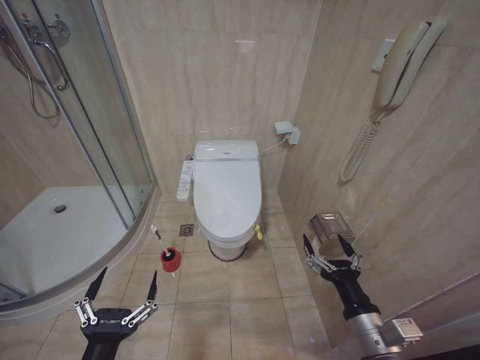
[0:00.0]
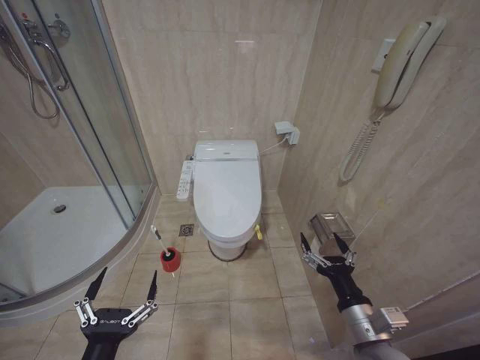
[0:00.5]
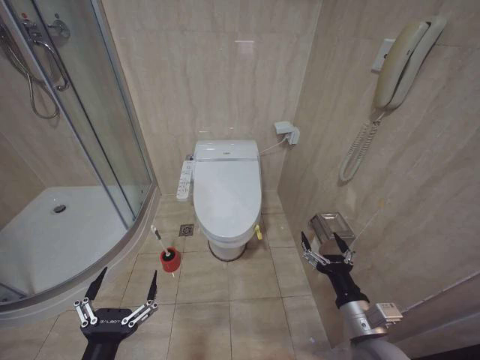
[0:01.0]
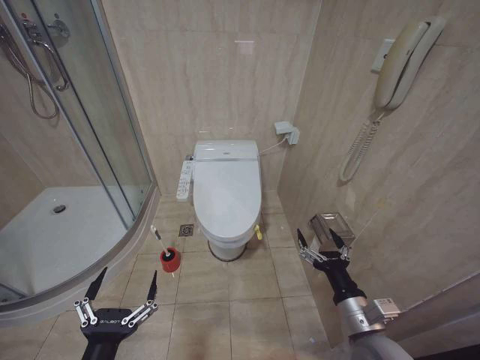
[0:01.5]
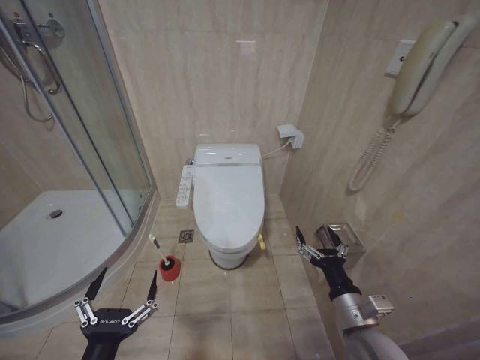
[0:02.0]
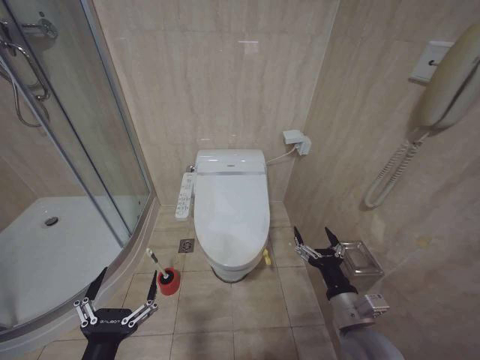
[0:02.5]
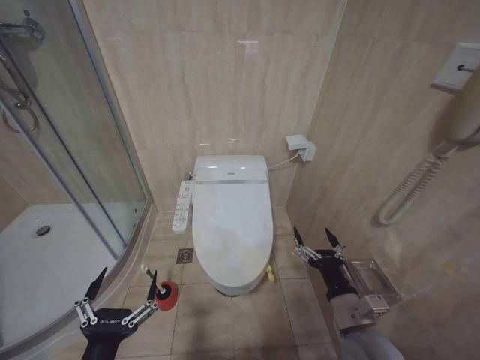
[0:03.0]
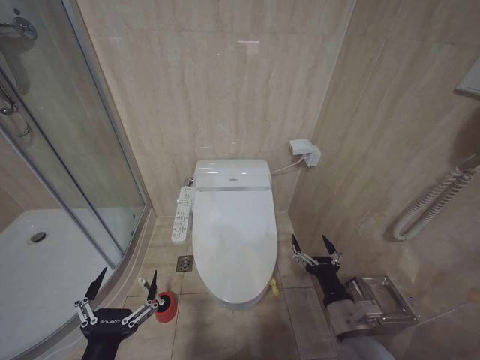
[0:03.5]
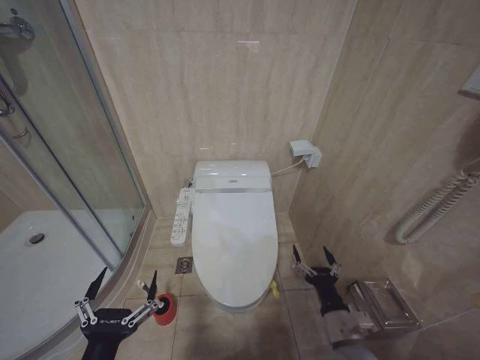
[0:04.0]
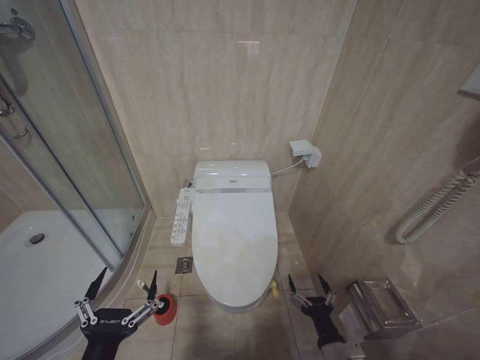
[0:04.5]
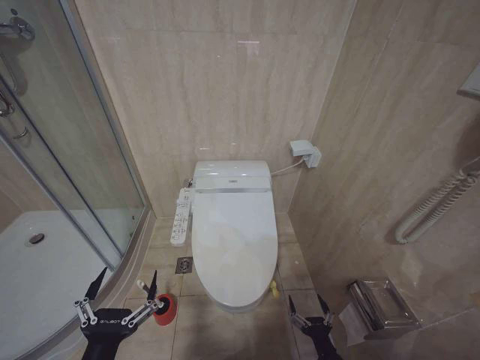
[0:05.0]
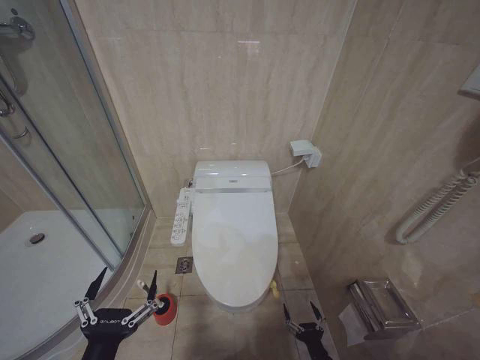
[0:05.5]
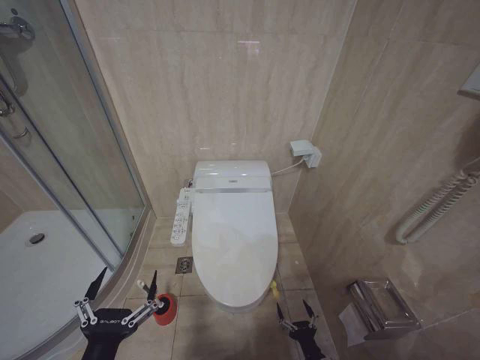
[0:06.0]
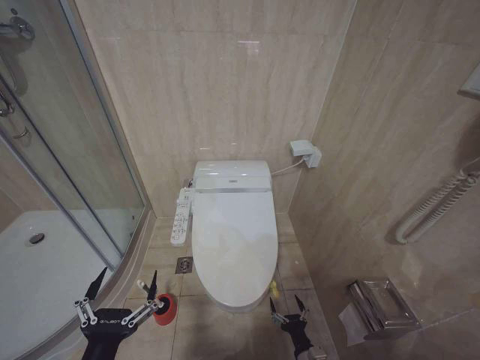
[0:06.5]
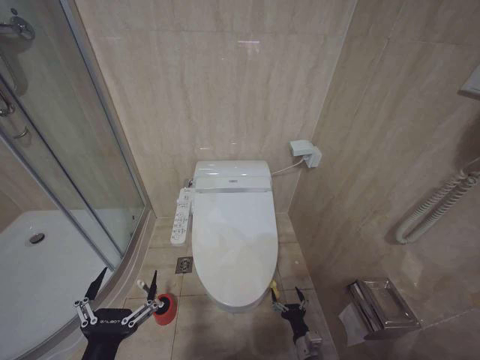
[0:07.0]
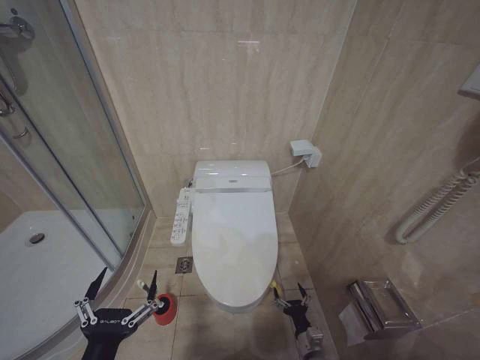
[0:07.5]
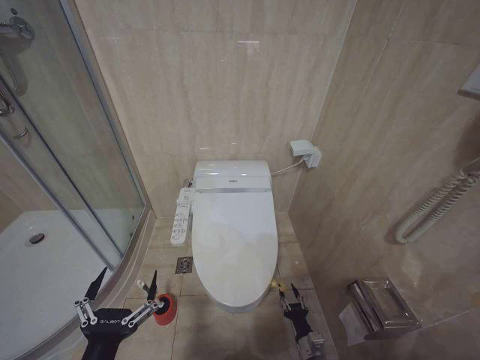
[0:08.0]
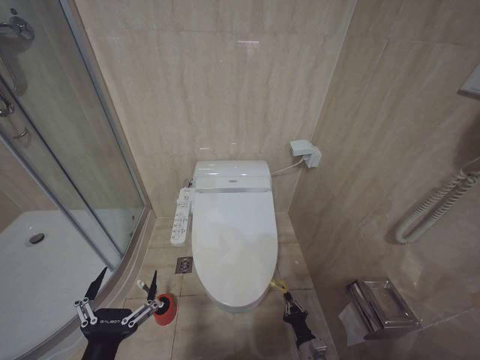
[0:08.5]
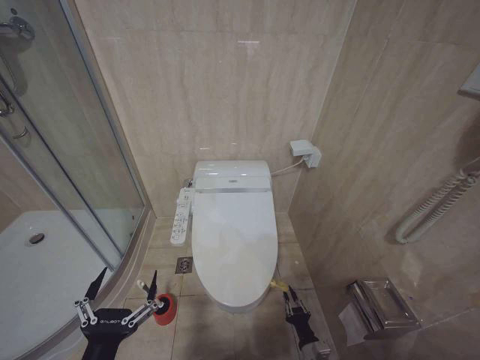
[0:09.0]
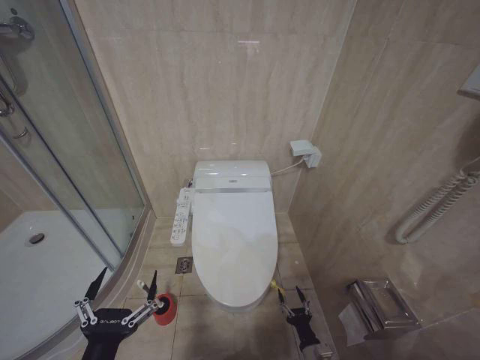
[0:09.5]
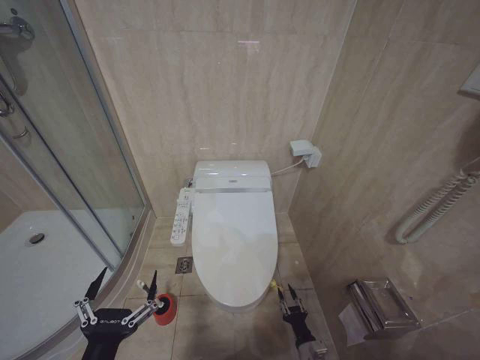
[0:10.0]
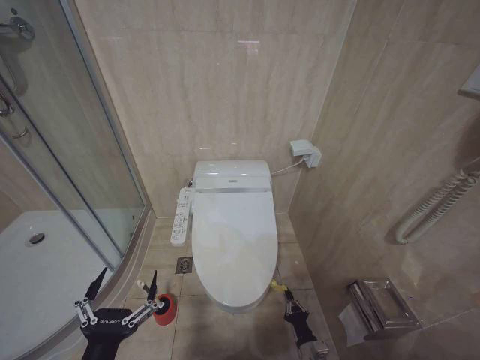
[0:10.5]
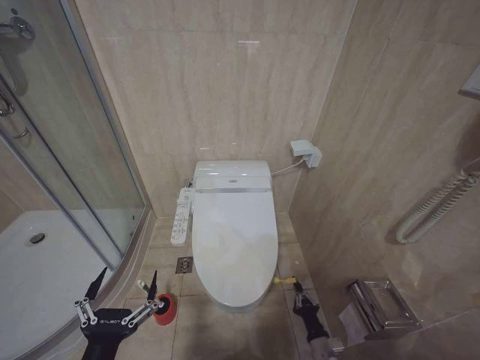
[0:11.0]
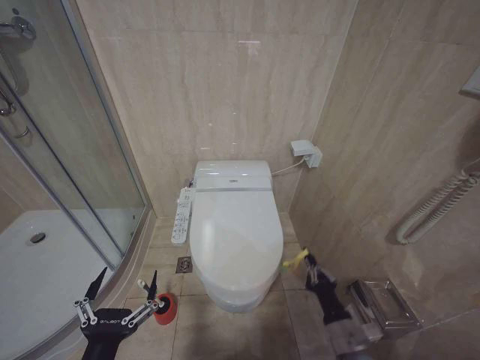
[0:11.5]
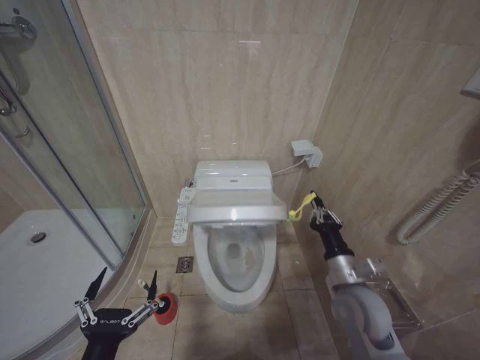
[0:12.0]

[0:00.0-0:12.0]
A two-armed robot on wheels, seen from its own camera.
Task of the whole recording: Open the toilet lid, clean the toilet bowl with a toilet brush, close the toilet lid, and flush.
0:02.0 to 0:04.0: The right gripper travels downward by about 5 cm.
0:04.0 to 0:06.0: The right gripper goes about 20 cm downward.
0:10.0 to 0:12.0: The right gripper travels upward by some 30 cm, and closes up.

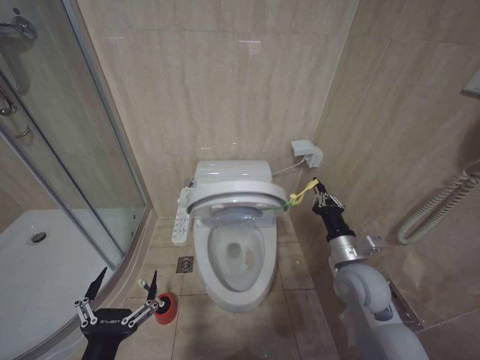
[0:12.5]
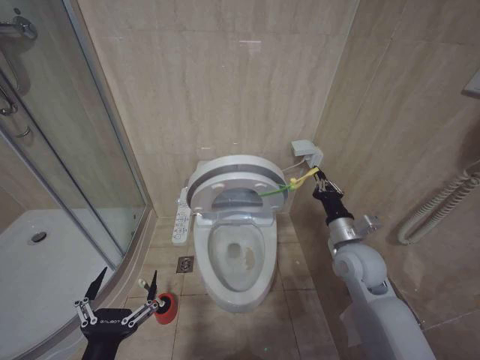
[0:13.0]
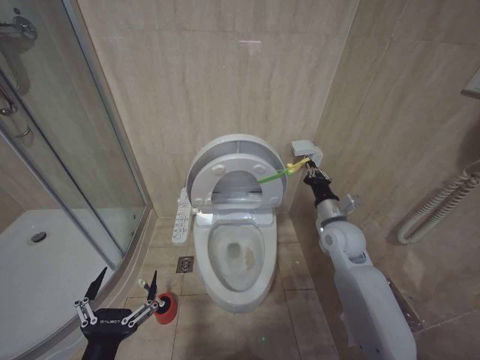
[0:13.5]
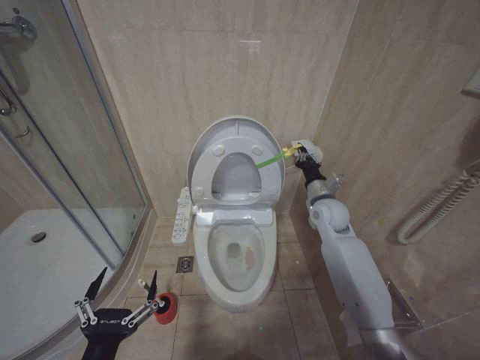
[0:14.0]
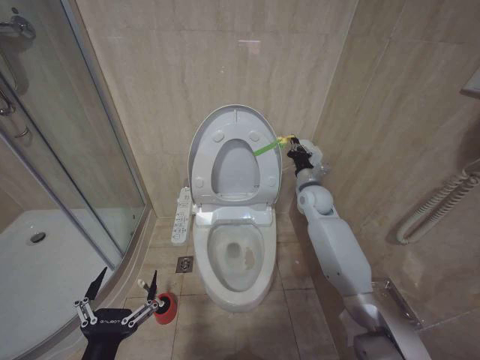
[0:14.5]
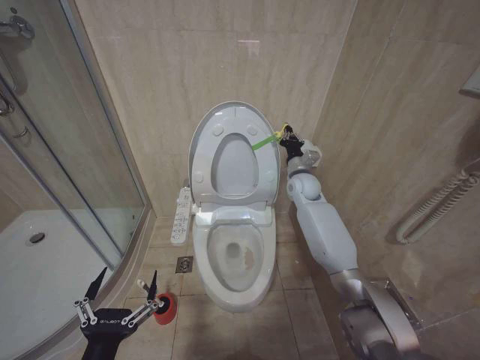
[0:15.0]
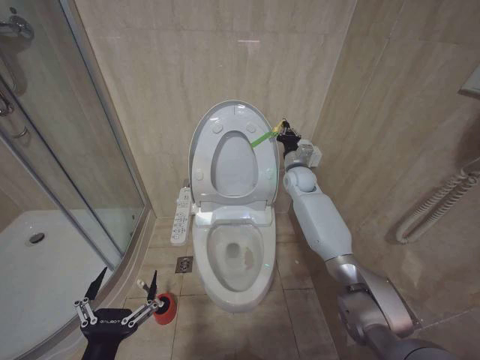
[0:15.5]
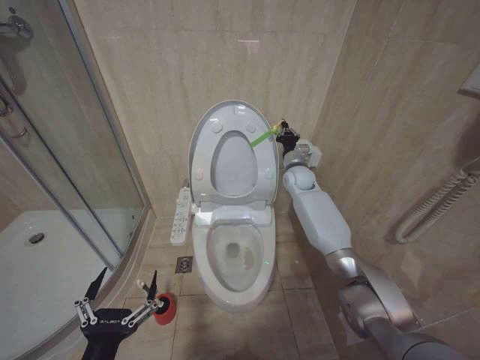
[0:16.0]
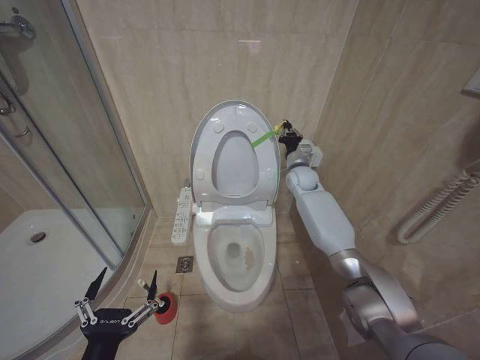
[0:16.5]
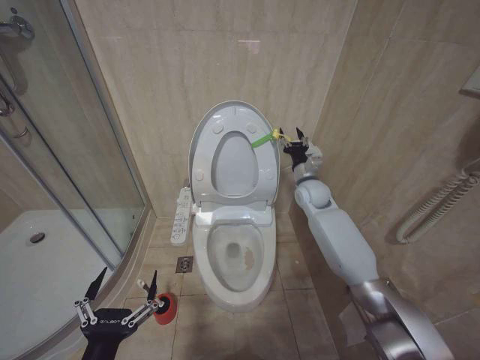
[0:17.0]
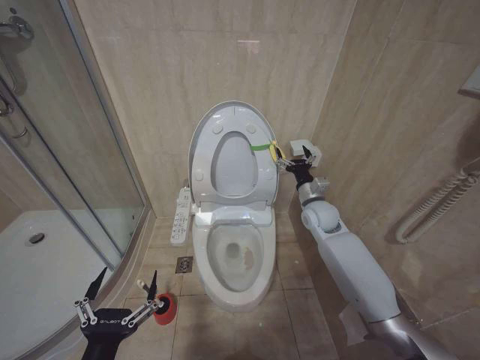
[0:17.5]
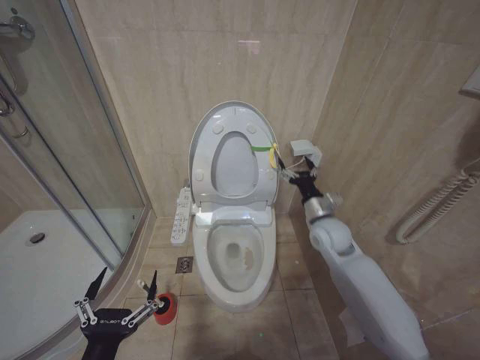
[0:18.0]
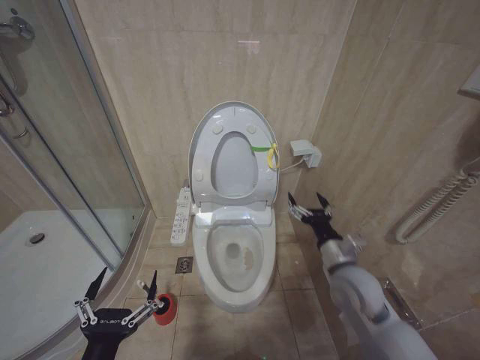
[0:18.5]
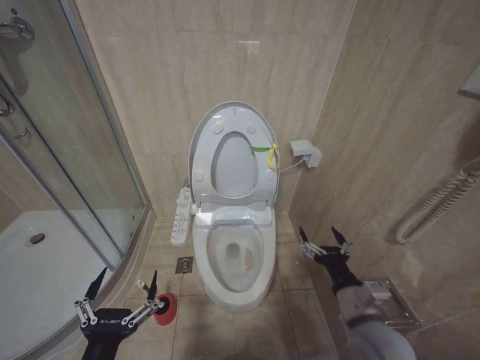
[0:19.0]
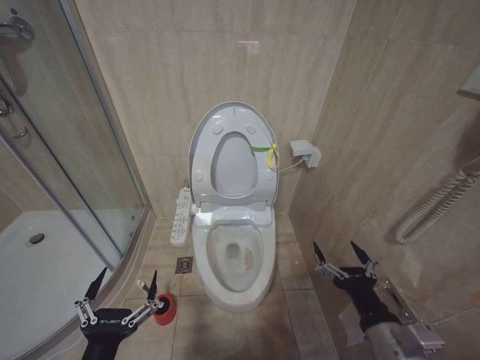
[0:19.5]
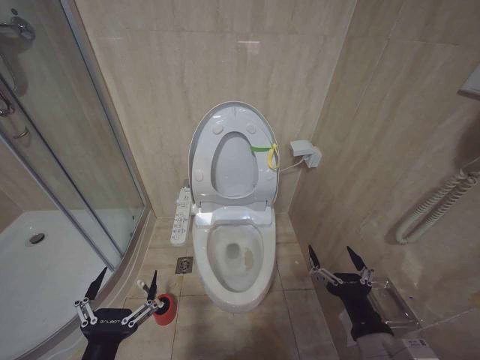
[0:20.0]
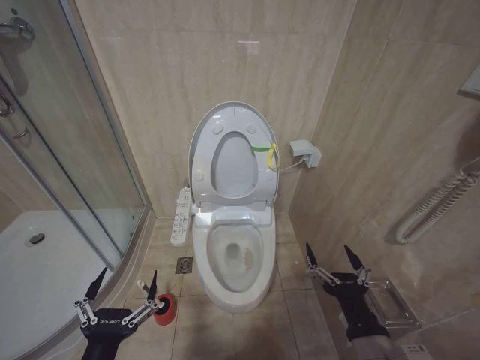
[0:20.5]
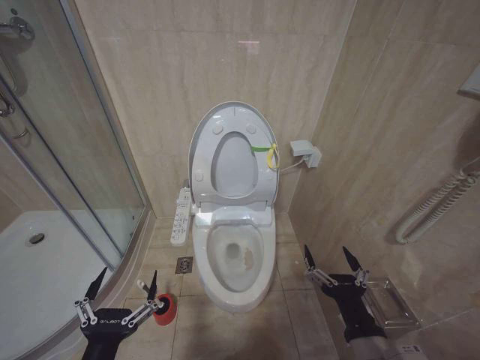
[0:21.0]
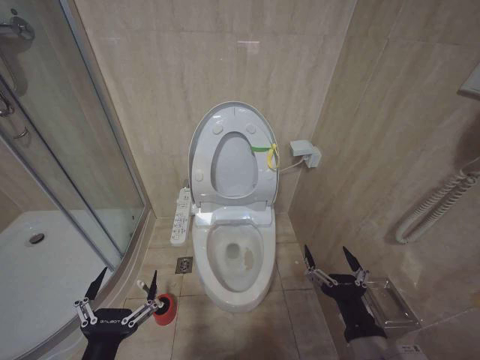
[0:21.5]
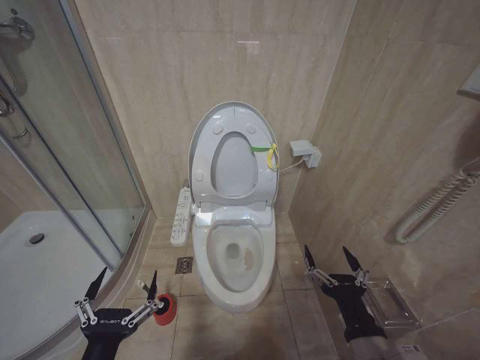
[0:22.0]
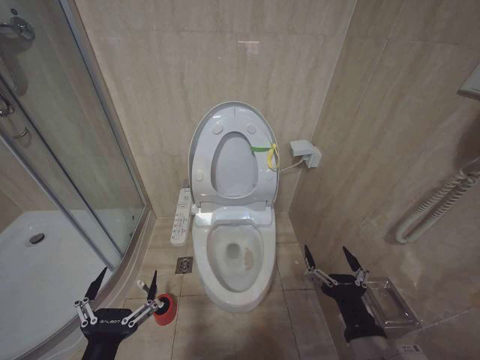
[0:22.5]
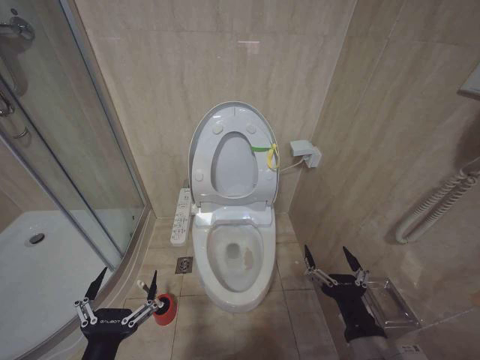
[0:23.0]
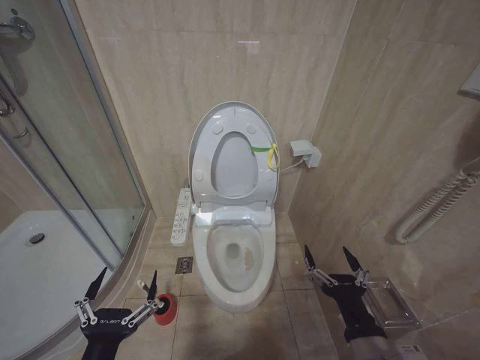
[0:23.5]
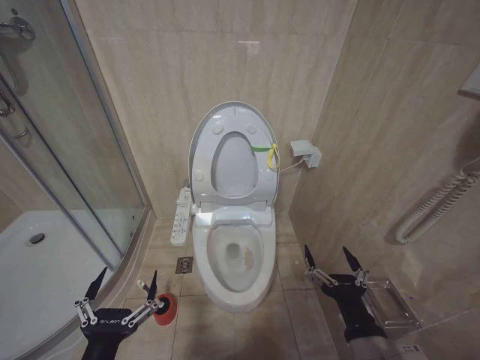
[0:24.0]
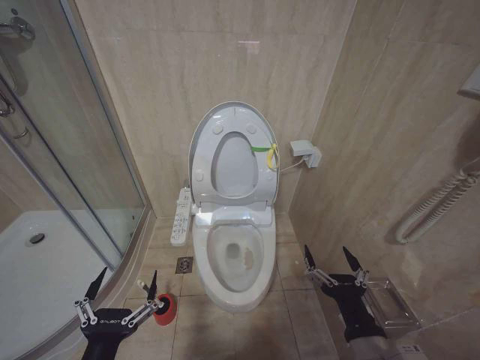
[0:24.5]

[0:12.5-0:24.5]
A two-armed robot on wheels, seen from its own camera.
Task of the whole recording: Open the toilet lid, clean the toilet bowl with a toilet brush, close the toilet lid, and flush.
0:12.5 to 0:14.5: The right gripper moves forward, approximately 25 cm.
0:14.5 to 0:16.5: The right gripper goes about 10 cm forward.
0:16.5 to 0:18.5: The right gripper heads backward, covering roughly 30 cm, and opens its fingers.
0:18.5 to 0:20.5: The right gripper heads backward, covering approximately 20 cm.
0:20.5 to 0:24.5: Both grippers stay put.

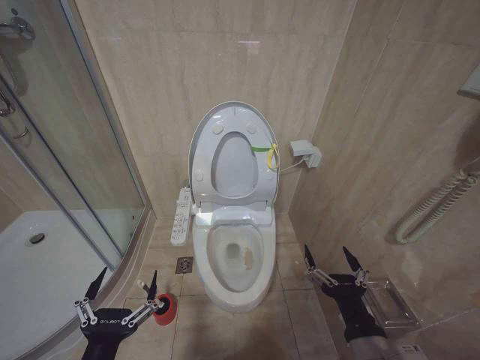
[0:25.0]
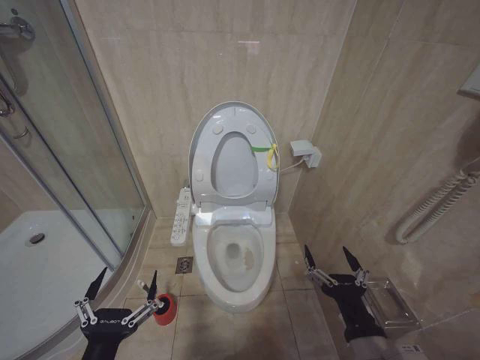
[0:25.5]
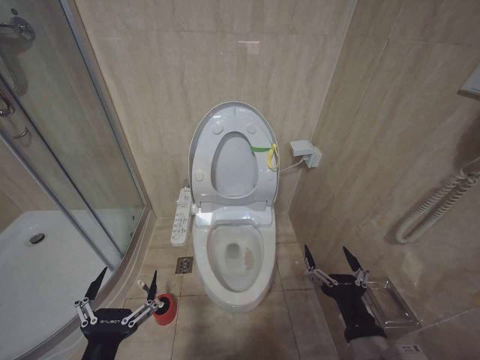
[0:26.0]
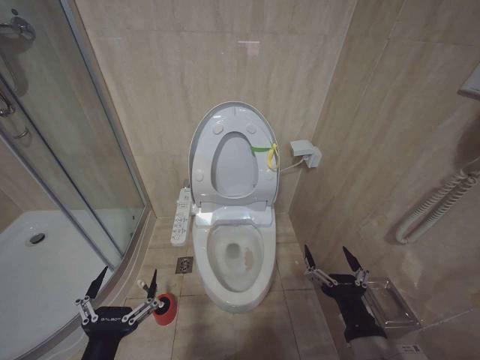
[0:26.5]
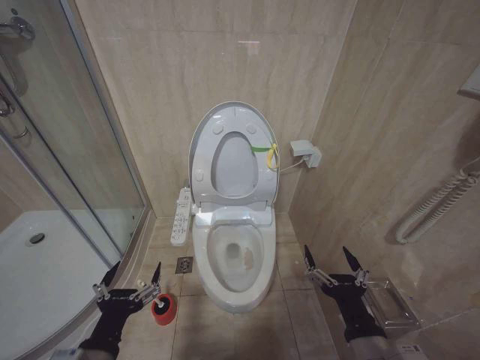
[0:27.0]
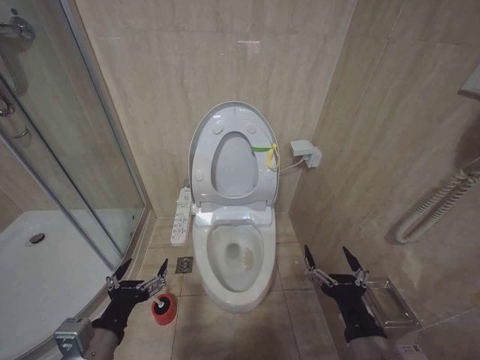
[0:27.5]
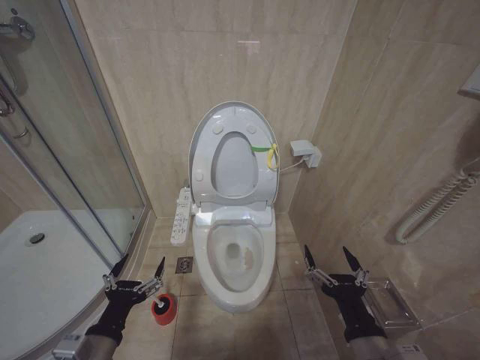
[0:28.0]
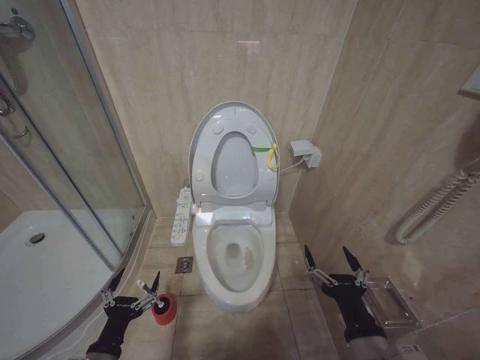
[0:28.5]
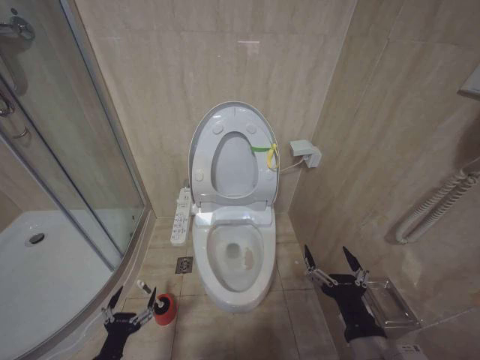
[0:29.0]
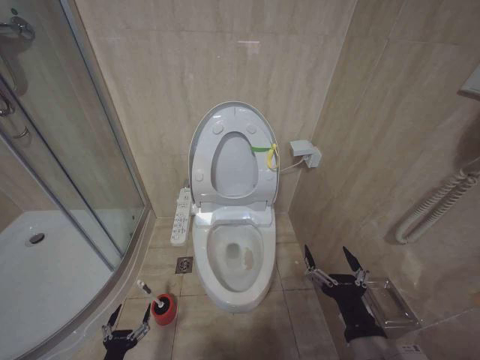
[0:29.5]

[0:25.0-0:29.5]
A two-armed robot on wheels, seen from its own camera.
Task of the whole recording: Open the toilet lid, clean the toilet bowl with a toilet brush, close the toilet lid, and flush.
0:25.0 to 0:27.0: The grippers move only a little.
0:27.0 to 0:29.5: The left gripper is displaced downward by roughly 25 cm.
